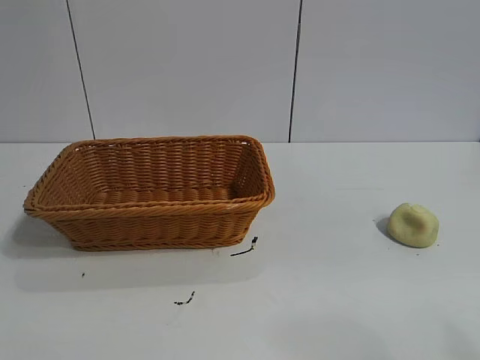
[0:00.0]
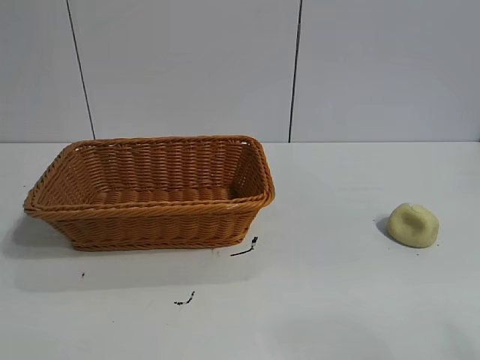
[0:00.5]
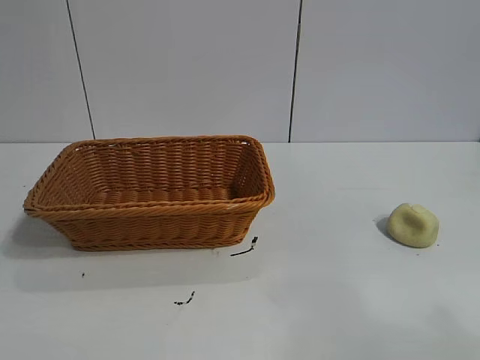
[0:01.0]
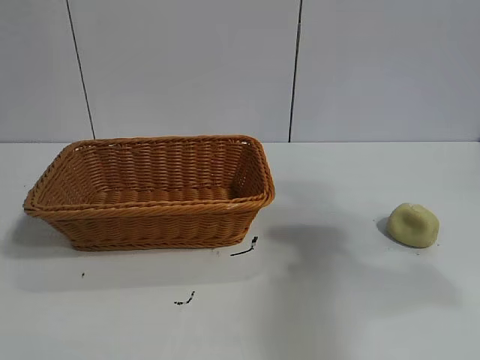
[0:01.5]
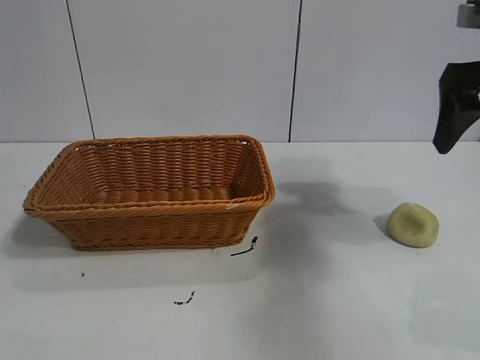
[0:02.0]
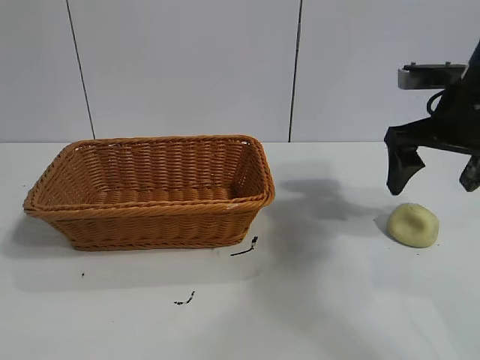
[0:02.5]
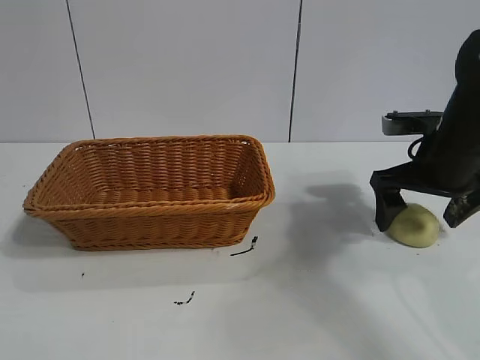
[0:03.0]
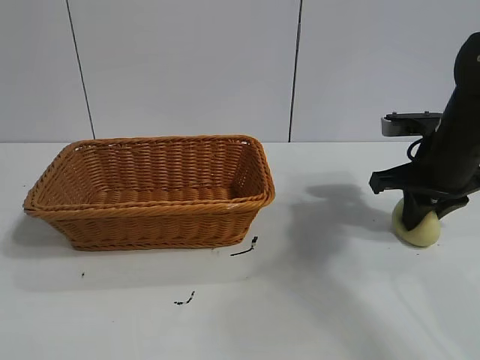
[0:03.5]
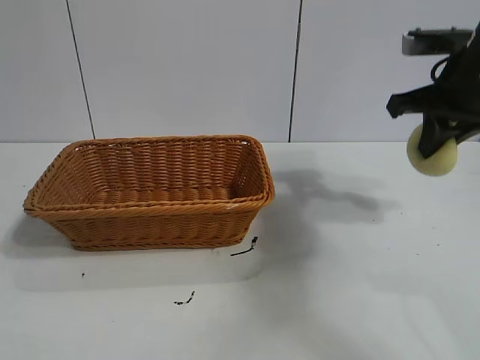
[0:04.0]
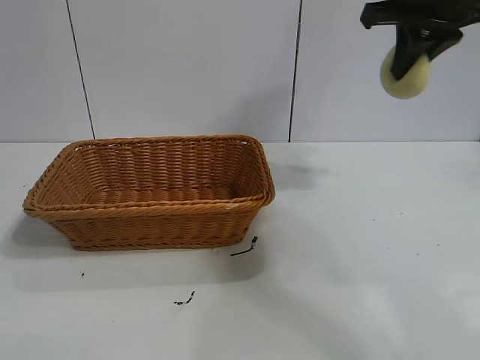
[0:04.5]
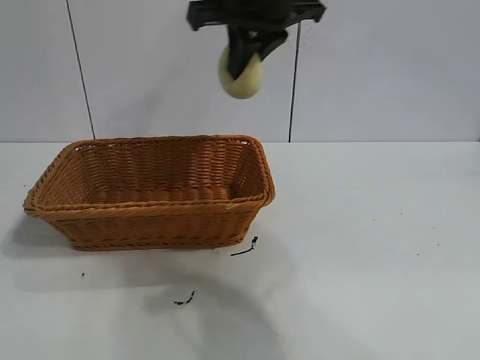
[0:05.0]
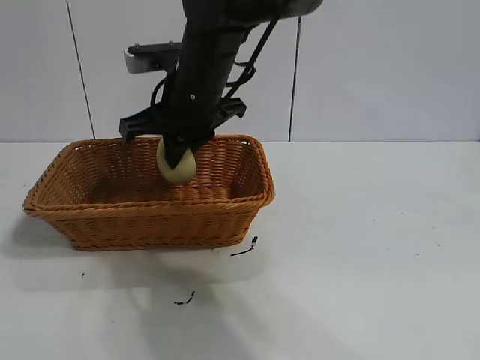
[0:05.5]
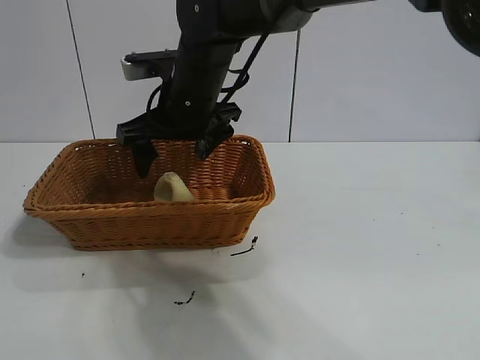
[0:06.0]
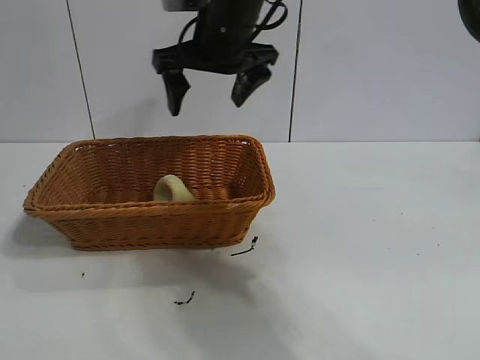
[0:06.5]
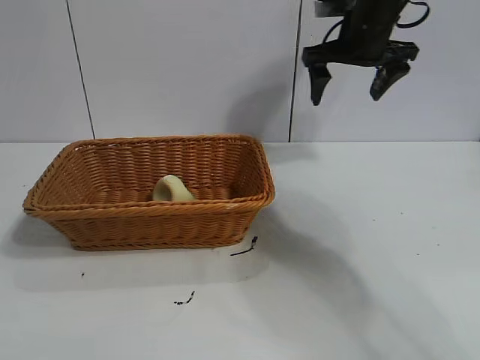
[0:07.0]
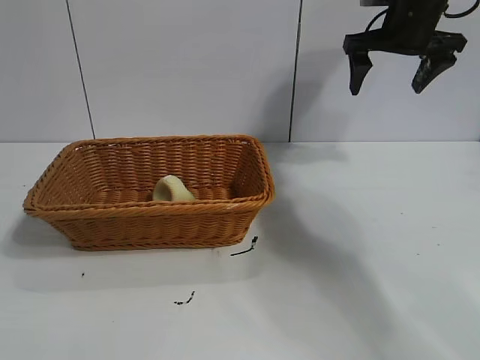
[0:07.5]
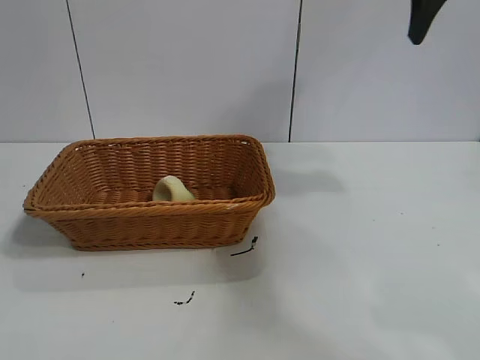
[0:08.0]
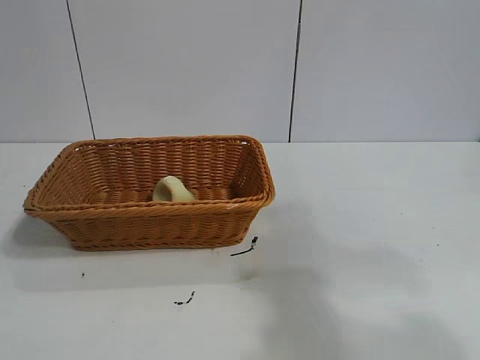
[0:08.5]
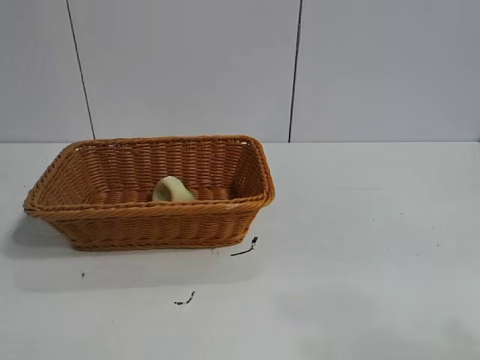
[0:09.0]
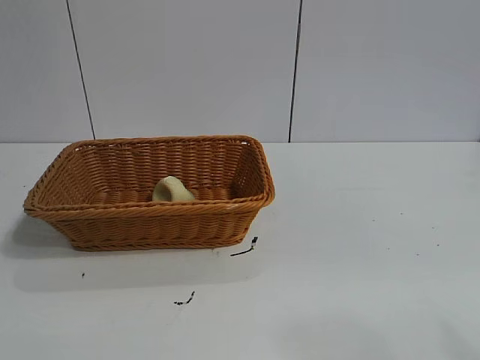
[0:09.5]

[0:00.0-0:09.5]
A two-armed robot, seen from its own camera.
Task of the whole recording: pick up the egg yolk pastry and put it into the basket.
Step, 0:01.0 to 0:03.0: Grasp egg yolk pastry with right gripper.
Step, 0:04.0 to 0:05.5: Place the egg yolk pastry in the basket with right gripper.

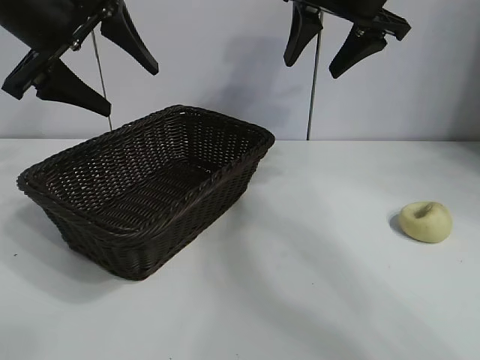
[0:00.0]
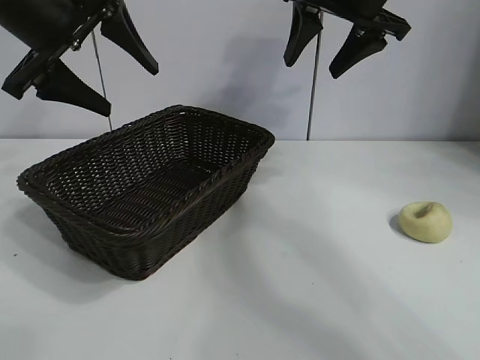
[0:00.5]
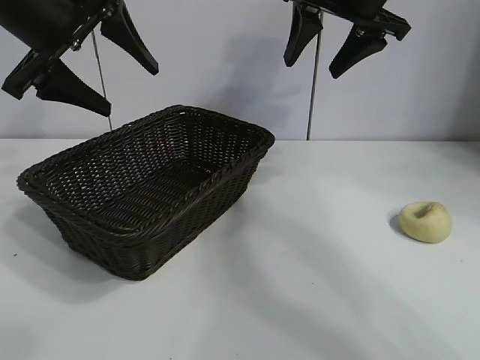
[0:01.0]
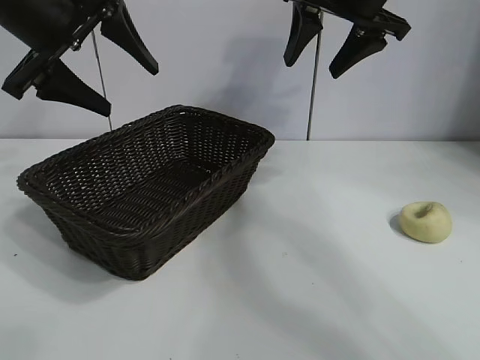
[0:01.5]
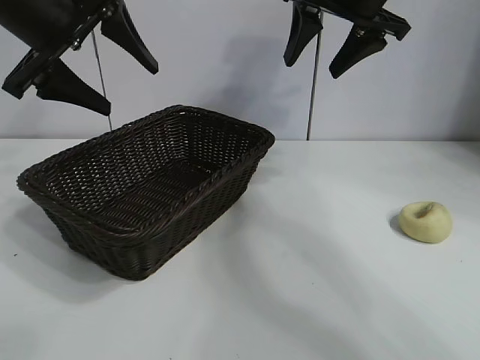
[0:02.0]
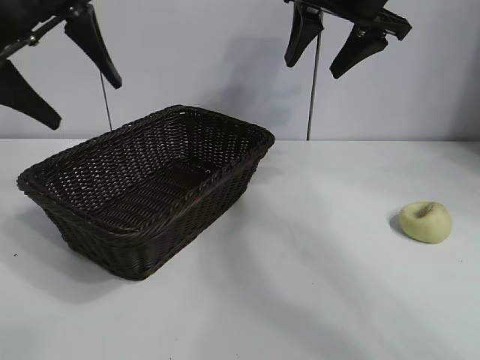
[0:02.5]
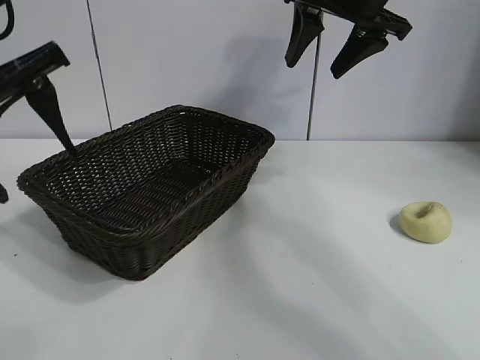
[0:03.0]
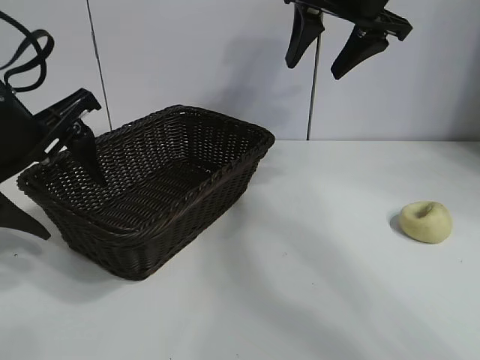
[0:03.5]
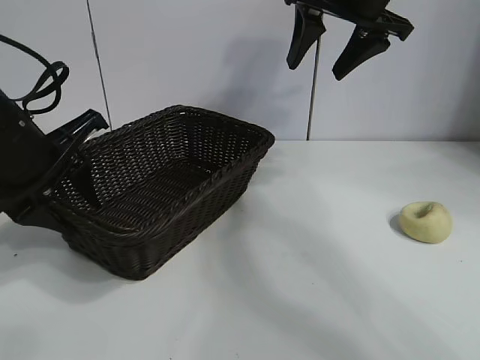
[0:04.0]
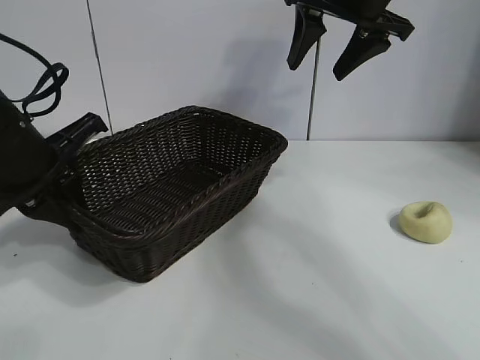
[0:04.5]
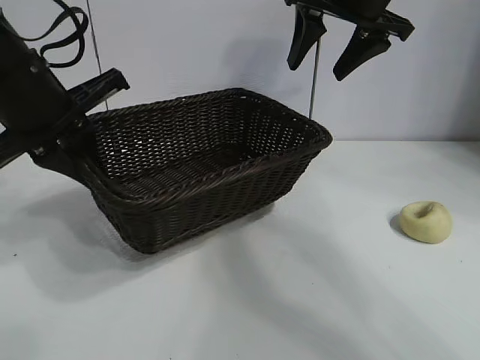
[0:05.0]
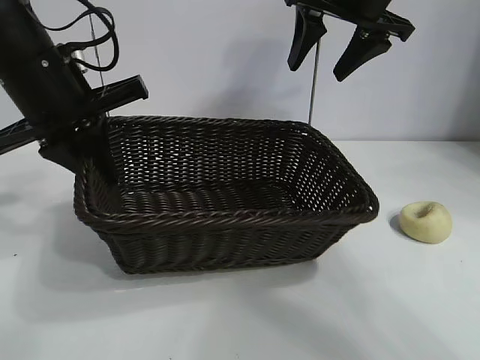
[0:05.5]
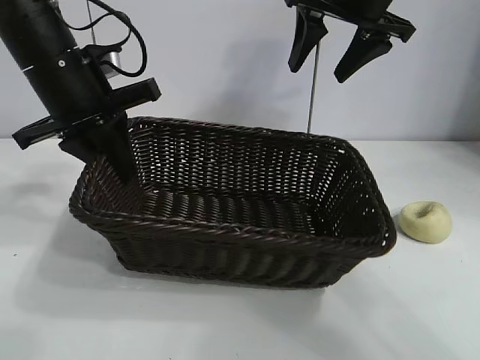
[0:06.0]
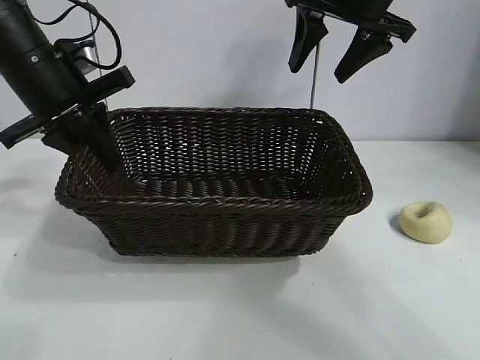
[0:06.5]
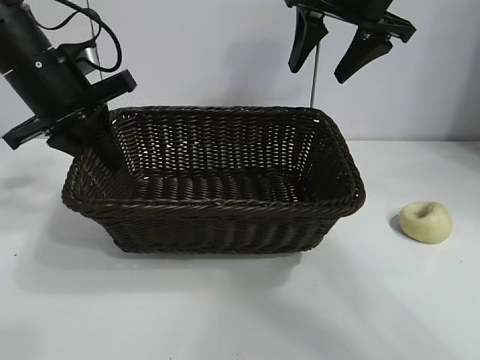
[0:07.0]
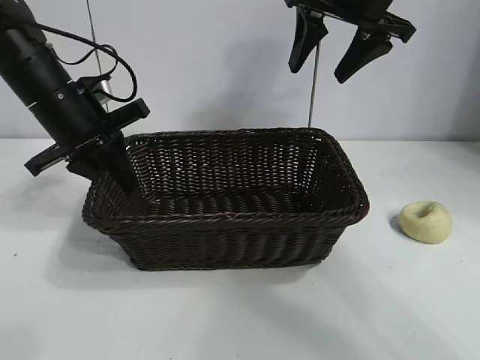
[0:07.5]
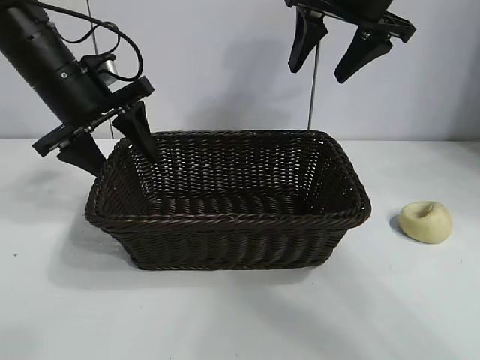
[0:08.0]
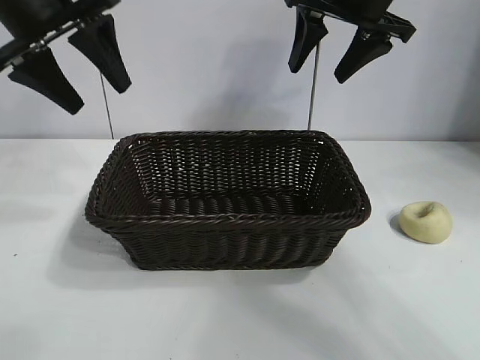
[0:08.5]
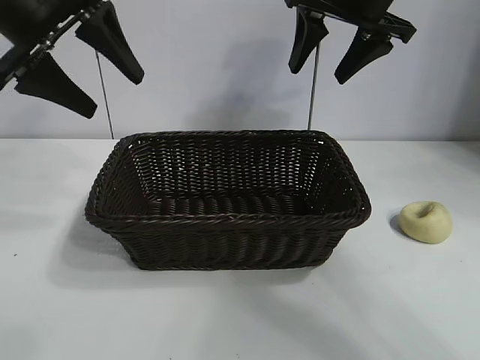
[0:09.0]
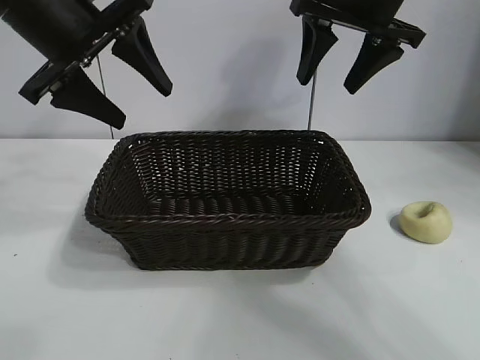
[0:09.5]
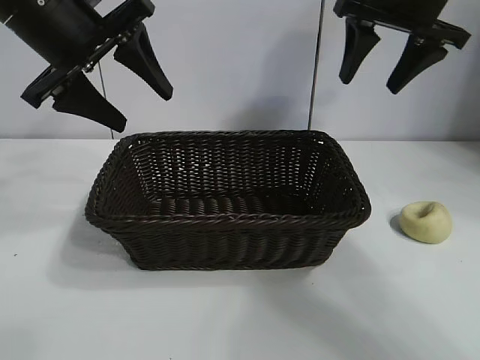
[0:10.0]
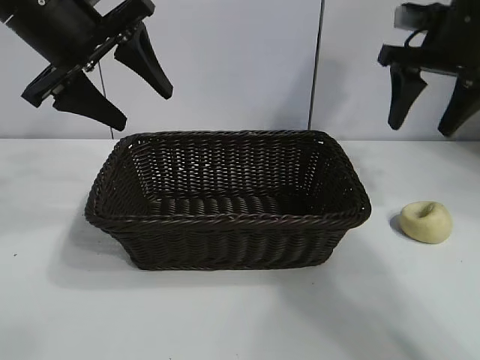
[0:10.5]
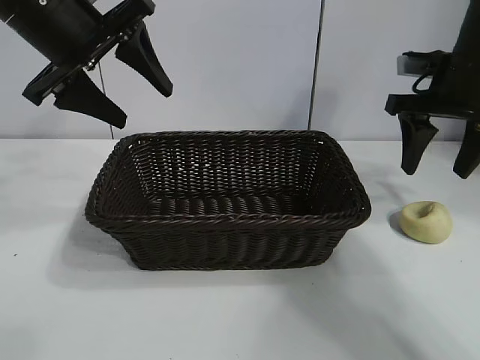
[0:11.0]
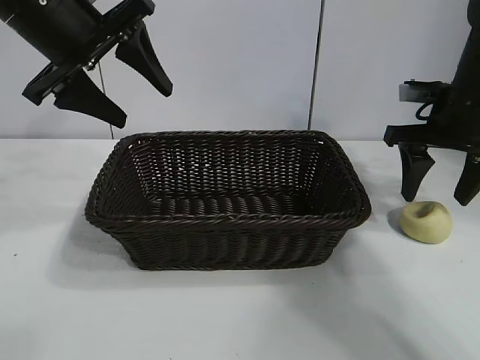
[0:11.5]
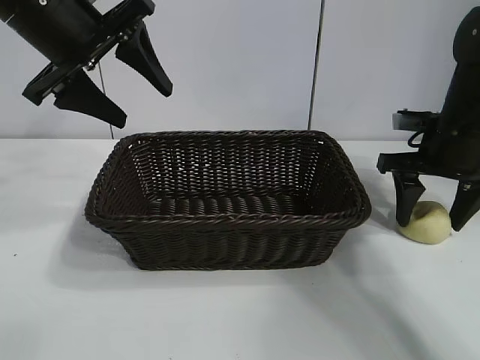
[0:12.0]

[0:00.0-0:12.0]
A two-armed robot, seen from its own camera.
Task of the whole recording: pick up the egg yolk pastry and put it into the basket.
Step, 0:02.5 to 0:04.5: Grasp the basket with left gripper.
Step, 0:05.0 to 0:07.5: Place the basket in the center of view with left gripper.

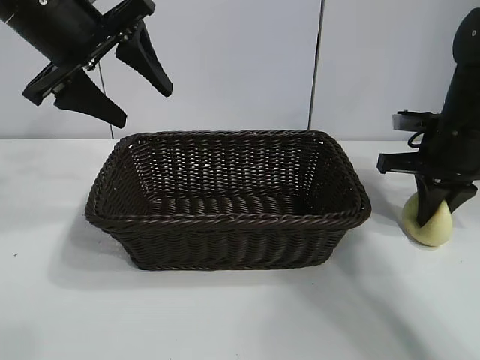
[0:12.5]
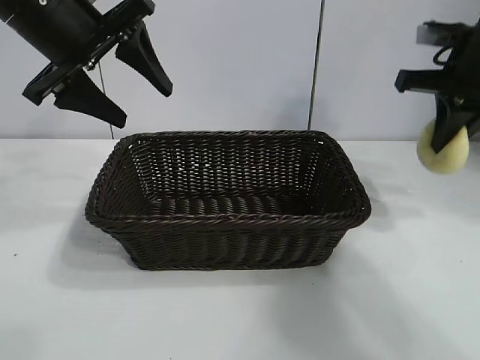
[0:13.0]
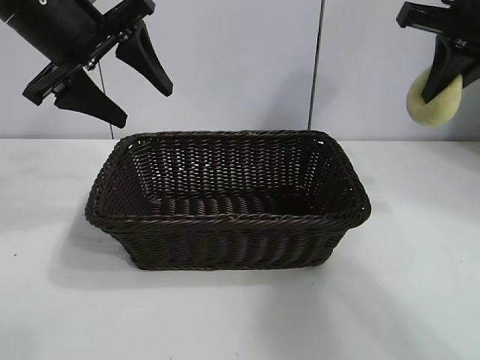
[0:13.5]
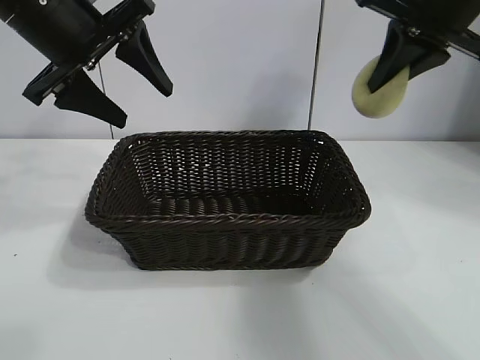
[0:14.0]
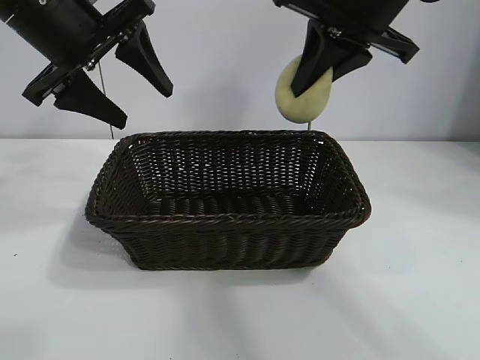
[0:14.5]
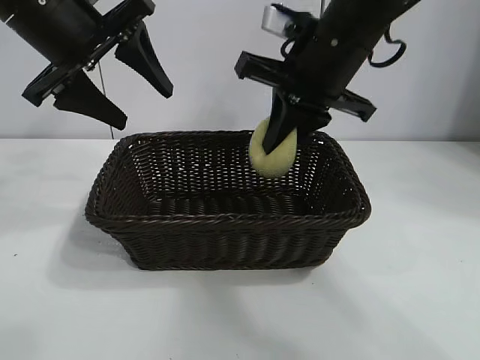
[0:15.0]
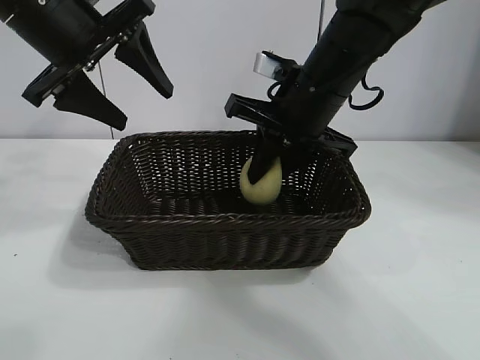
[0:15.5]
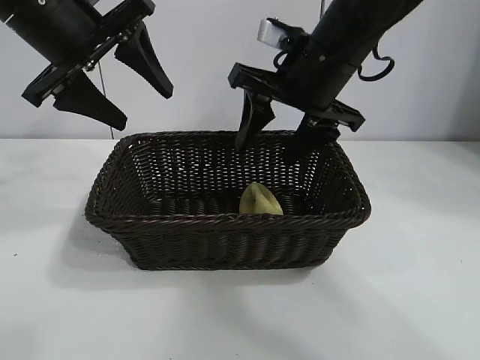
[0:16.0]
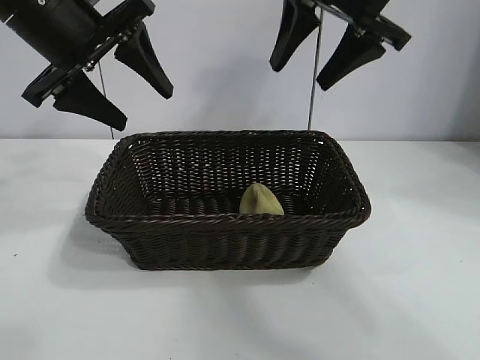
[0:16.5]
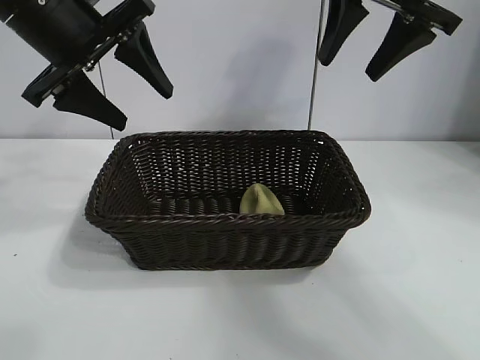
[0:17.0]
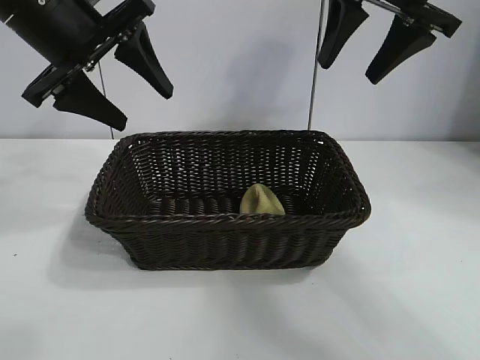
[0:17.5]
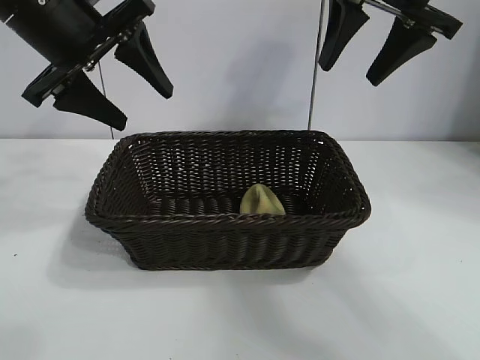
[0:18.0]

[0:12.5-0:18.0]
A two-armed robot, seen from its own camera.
Task of the whole recording: pick up the egg yolk pastry and put it into the basket.
Step, 0:13.0 to 0:15.5: Place the egg yolk pastry in the basket with right gripper.
